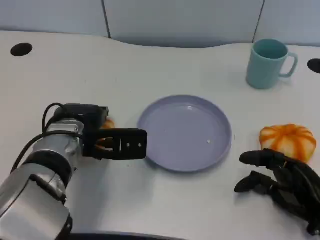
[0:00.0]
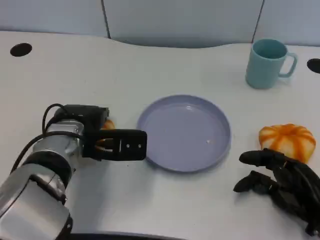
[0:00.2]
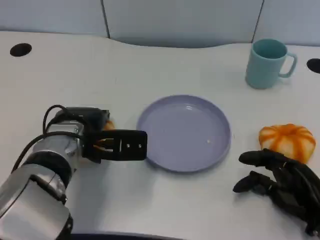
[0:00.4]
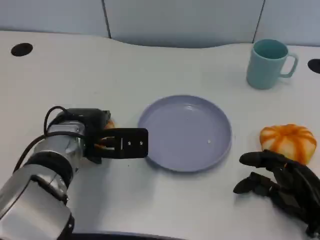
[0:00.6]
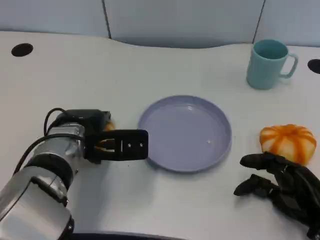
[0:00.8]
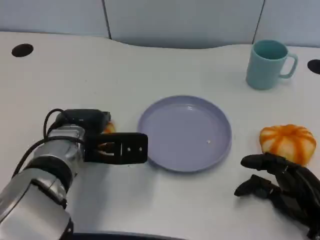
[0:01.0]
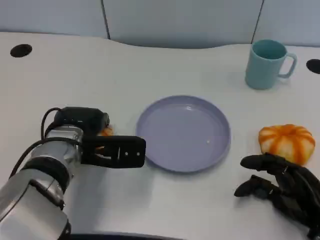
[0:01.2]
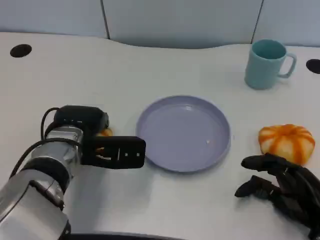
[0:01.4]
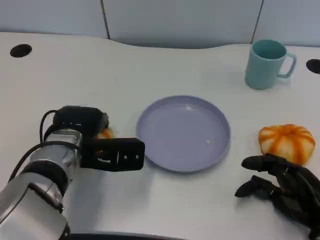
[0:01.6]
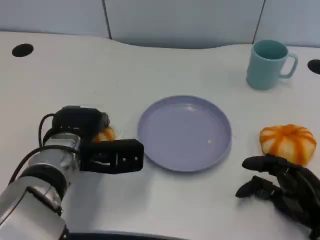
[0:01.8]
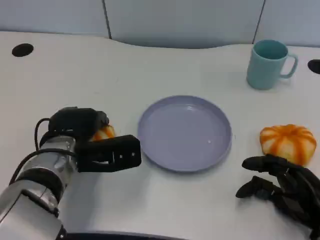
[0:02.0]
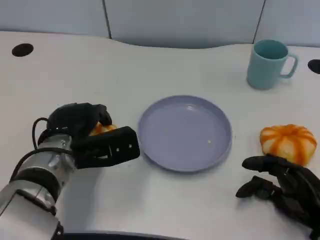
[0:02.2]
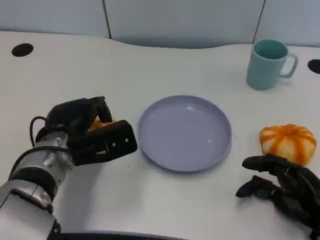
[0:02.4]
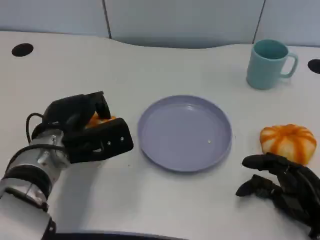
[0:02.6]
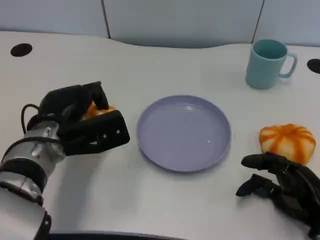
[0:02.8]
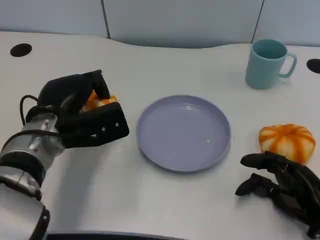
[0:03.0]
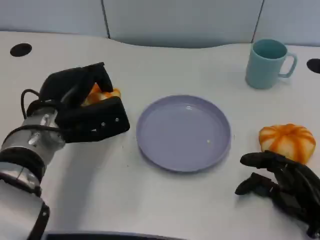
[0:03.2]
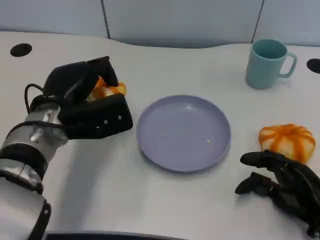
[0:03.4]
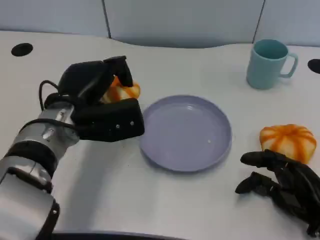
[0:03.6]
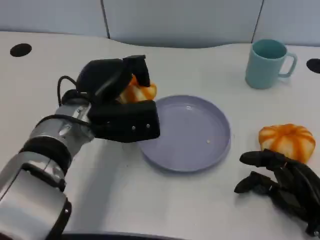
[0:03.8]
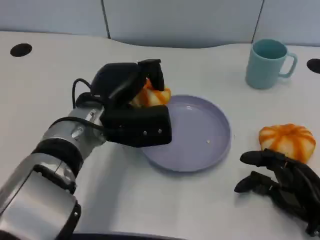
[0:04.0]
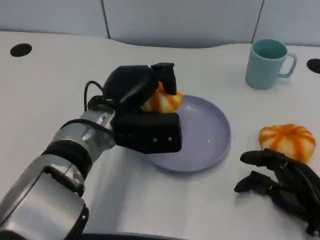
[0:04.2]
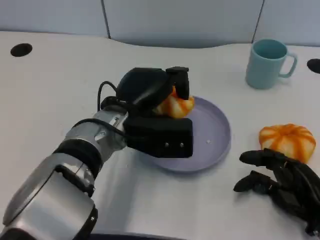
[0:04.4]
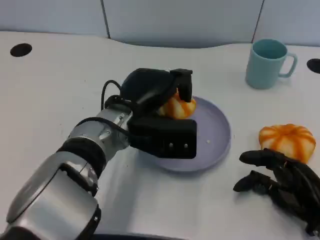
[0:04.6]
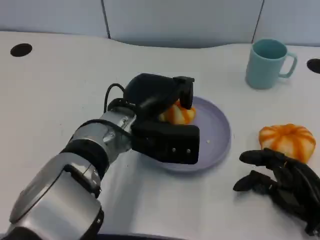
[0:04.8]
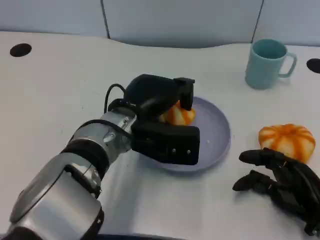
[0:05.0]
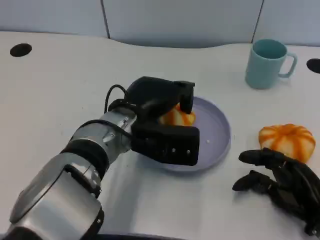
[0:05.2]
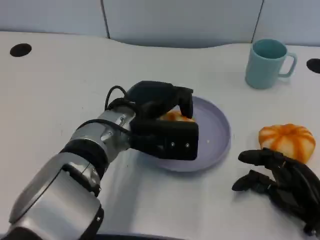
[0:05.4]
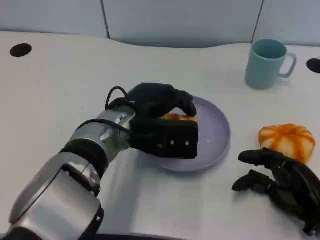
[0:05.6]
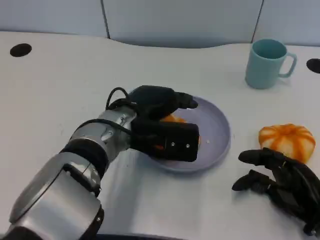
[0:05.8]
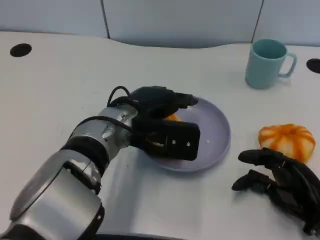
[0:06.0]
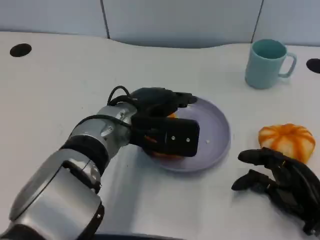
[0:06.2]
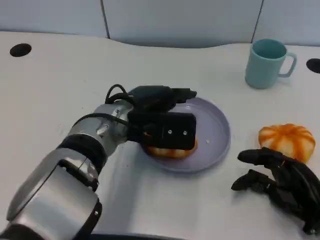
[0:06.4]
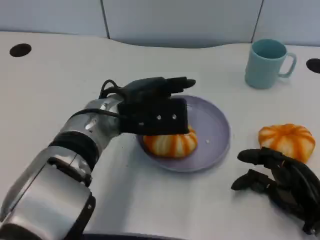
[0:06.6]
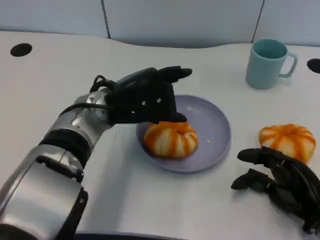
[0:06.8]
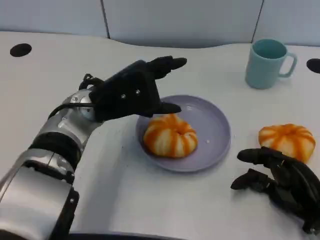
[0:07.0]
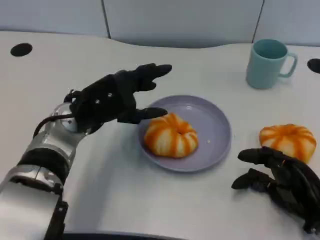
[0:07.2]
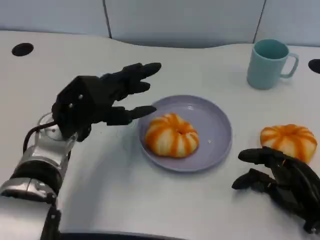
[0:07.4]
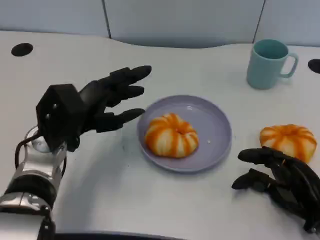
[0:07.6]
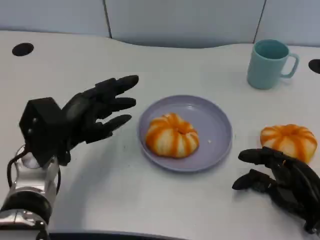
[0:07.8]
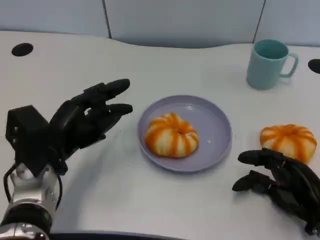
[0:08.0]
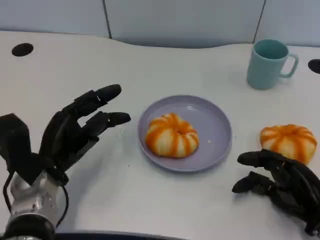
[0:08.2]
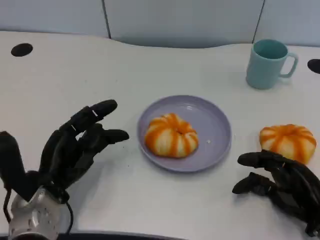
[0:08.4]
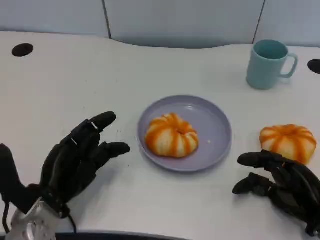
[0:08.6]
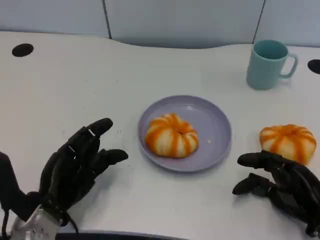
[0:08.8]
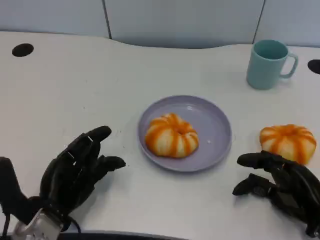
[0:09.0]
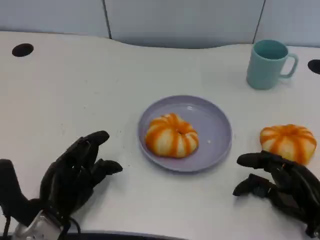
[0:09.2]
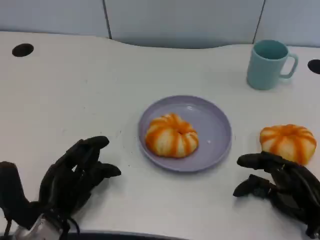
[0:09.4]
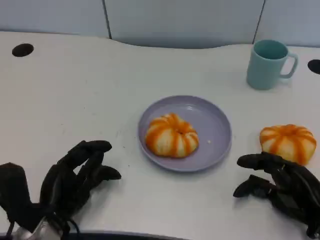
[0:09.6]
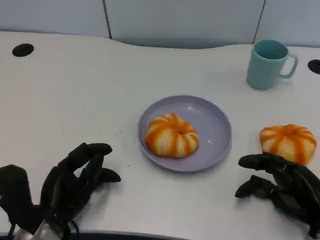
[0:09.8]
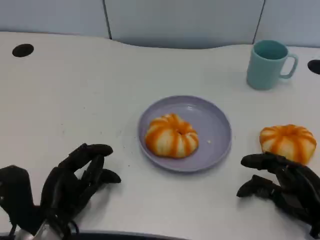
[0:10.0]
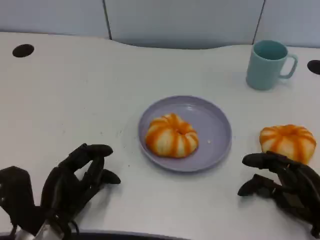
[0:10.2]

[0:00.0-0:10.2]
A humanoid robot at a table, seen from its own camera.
Task of the whole recording: Grasp the bread from the table and place it into the plate.
0:00.0 to 0:01.4: Neither hand changes place.
0:03.0 to 0:04.4: The left hand travels to the right by about 10 cm.
0:04.4 to 0:05.8: The hands make only small movements.
0:05.8 to 0:07.2: The left hand travels to the left by roughly 10 cm.
0:07.2 to 0:08.8: The left hand travels downward, backward and to the left by roughly 15 cm.
0:08.8 to 0:10.2: The hands move only a little.

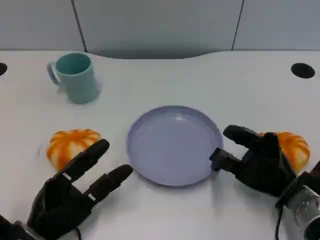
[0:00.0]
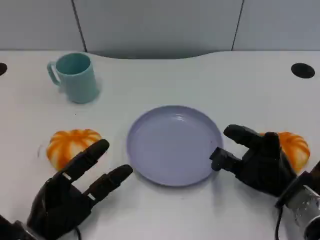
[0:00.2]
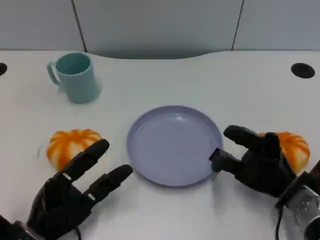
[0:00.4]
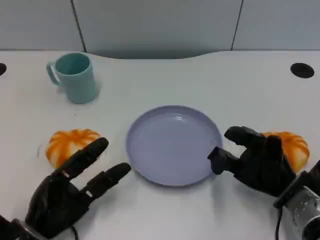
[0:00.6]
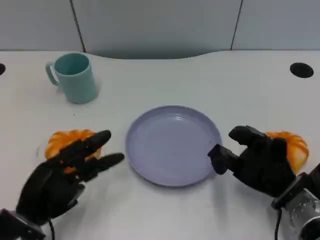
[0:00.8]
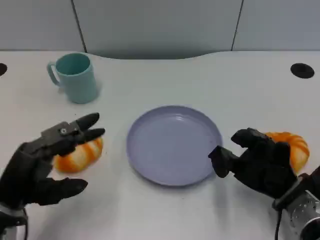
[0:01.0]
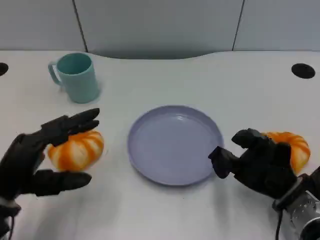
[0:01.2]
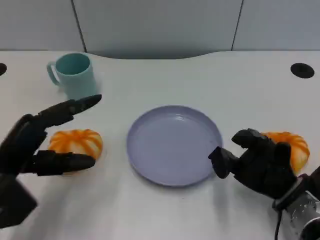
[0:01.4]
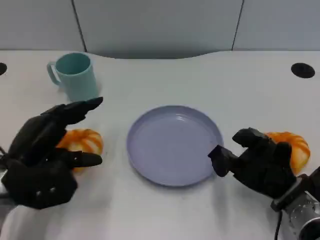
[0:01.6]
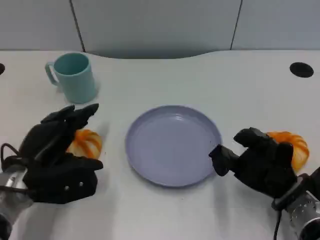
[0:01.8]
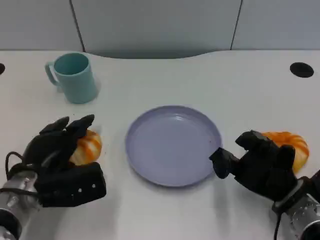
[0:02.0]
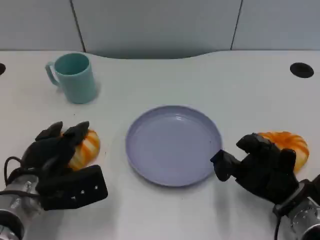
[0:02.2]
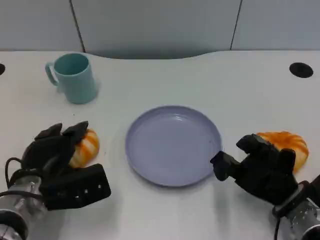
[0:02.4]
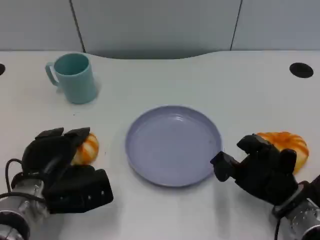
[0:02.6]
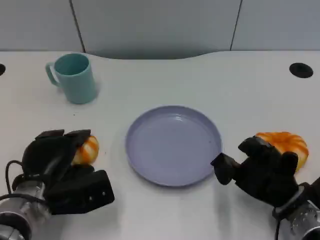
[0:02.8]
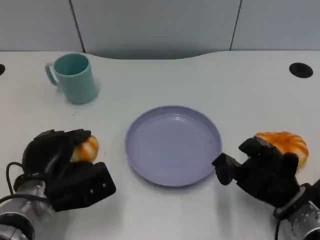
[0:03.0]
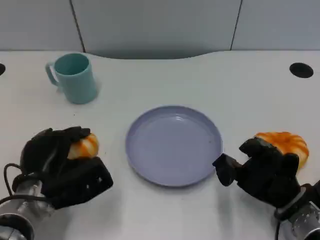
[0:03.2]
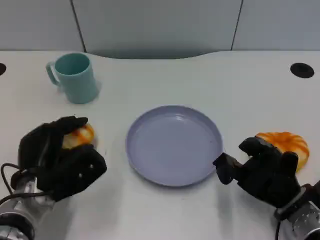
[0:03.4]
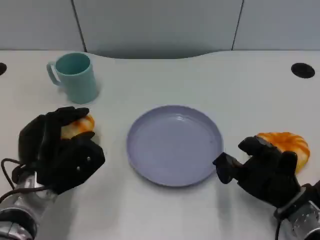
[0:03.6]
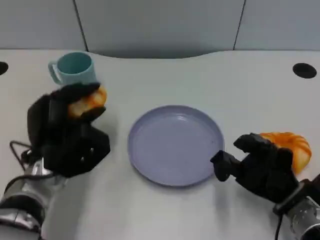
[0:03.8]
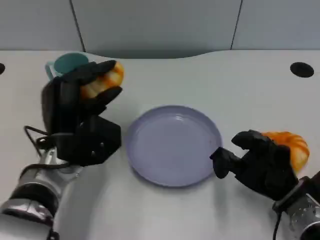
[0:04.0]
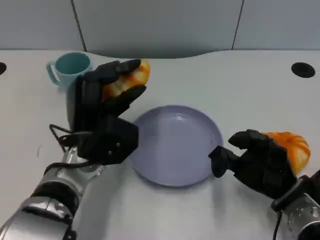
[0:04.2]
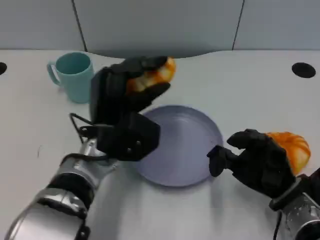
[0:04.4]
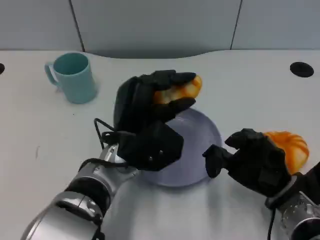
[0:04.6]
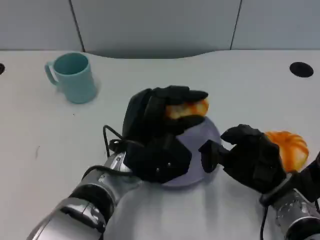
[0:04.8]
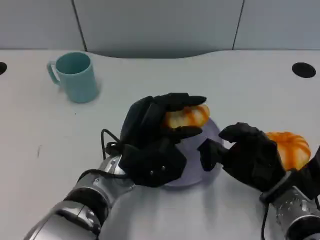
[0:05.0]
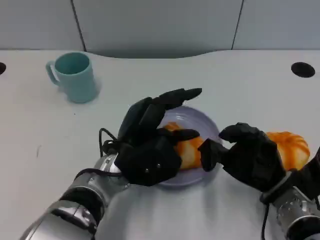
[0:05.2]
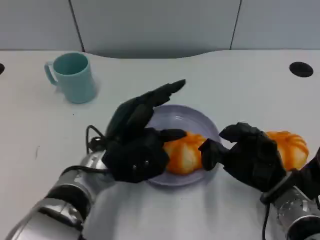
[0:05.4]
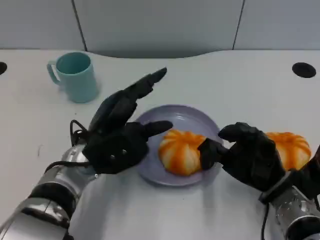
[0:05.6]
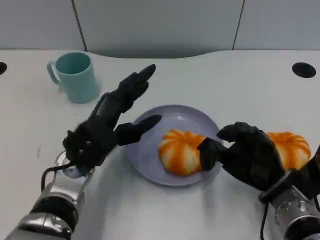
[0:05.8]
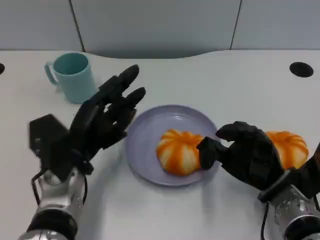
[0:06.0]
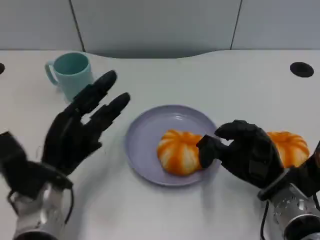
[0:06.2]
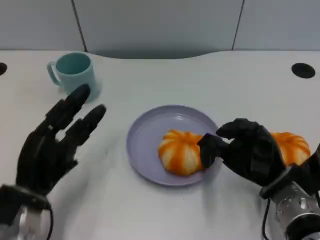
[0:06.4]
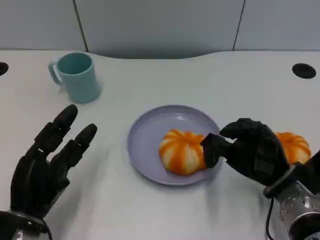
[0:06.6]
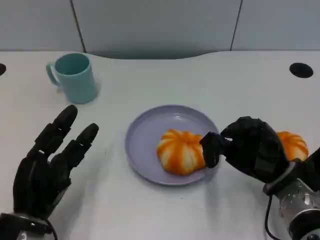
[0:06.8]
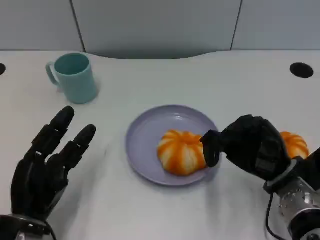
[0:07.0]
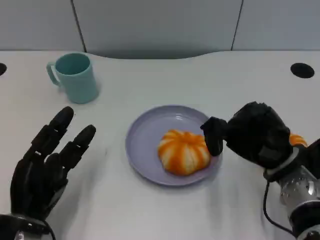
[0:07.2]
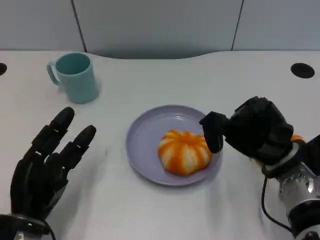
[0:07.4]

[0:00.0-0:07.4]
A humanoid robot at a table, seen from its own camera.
Task of the whole recording: Grasp the bread from the table and place it into the plate.
0:00.0 to 0:01.4: The left hand is displaced upward by about 10 cm.
0:01.4 to 0:03.0: The left hand heads downward, covering some 5 cm.
0:03.0 to 0:04.4: The left hand shifts about 15 cm to the right and upward.
0:04.4 to 0:06.0: The left hand goes about 10 cm to the left.
0:06.0 to 0:07.4: The left hand goes approximately 10 cm backward and to the left.
